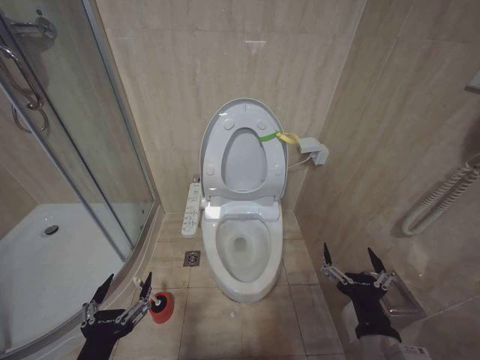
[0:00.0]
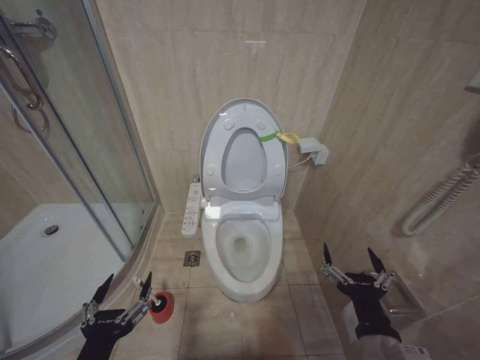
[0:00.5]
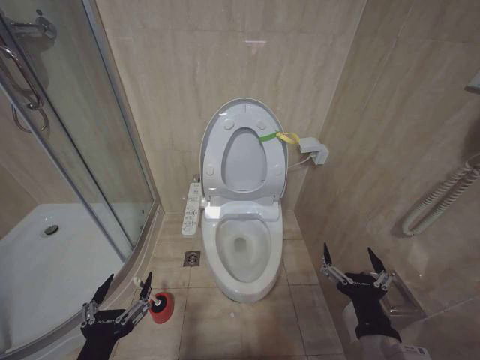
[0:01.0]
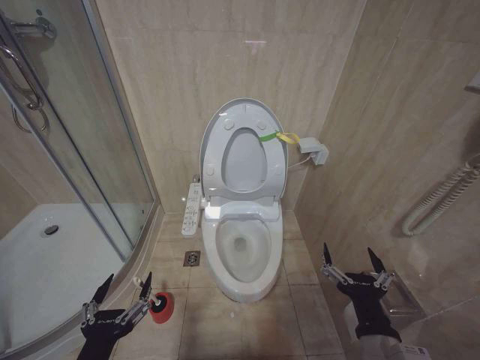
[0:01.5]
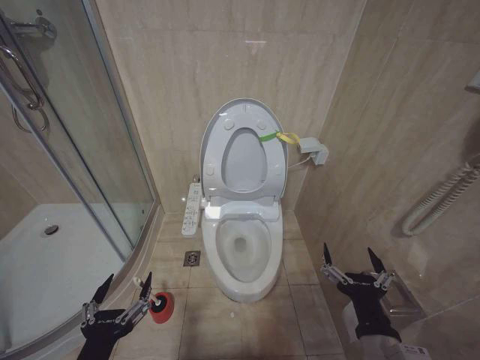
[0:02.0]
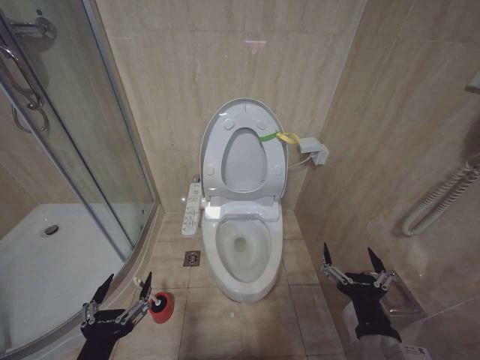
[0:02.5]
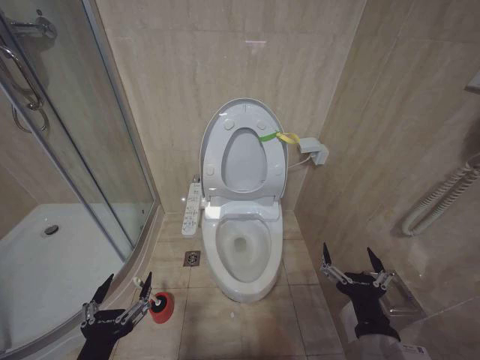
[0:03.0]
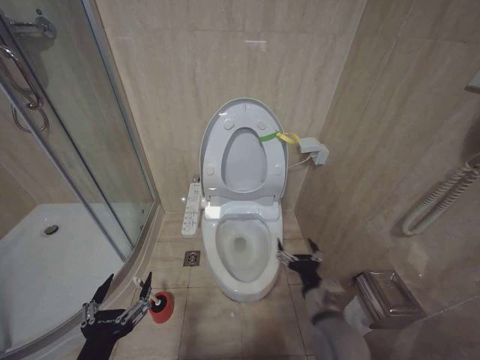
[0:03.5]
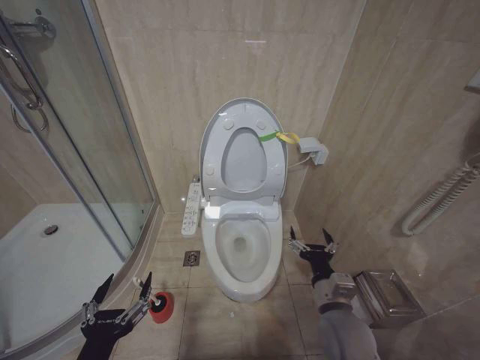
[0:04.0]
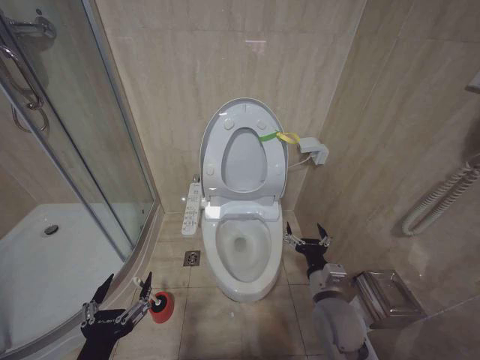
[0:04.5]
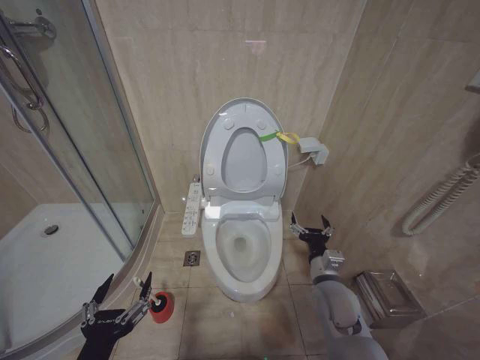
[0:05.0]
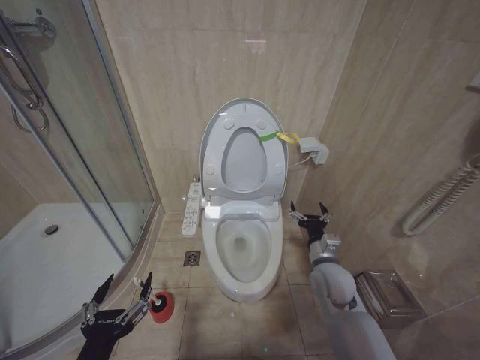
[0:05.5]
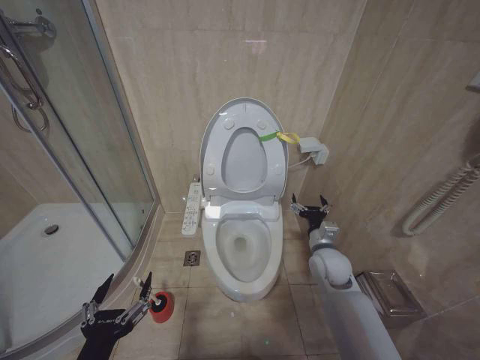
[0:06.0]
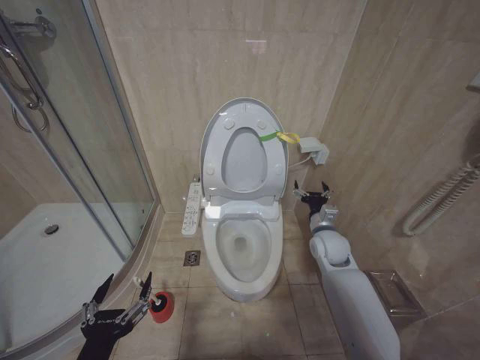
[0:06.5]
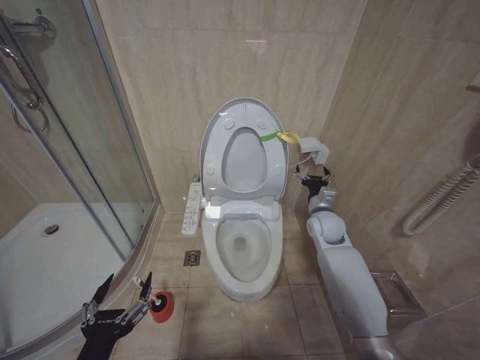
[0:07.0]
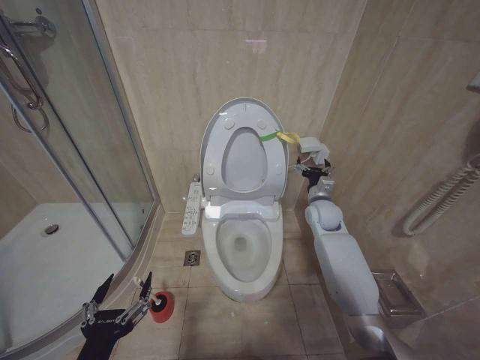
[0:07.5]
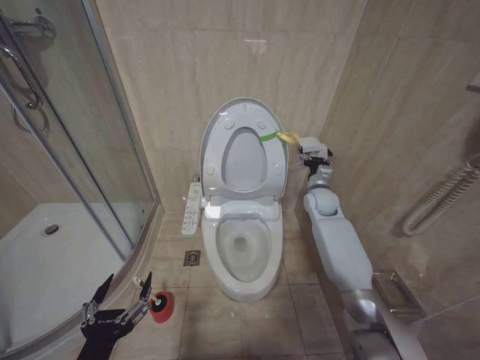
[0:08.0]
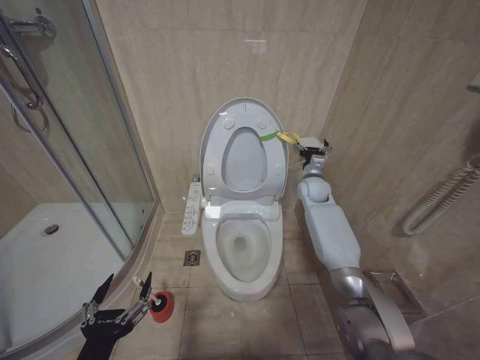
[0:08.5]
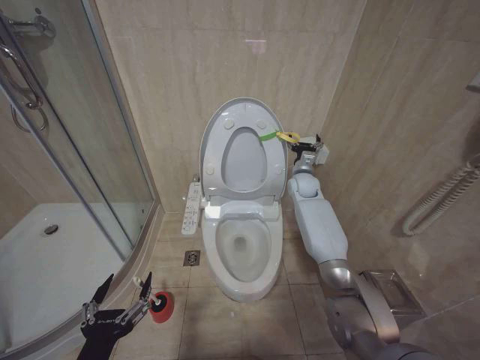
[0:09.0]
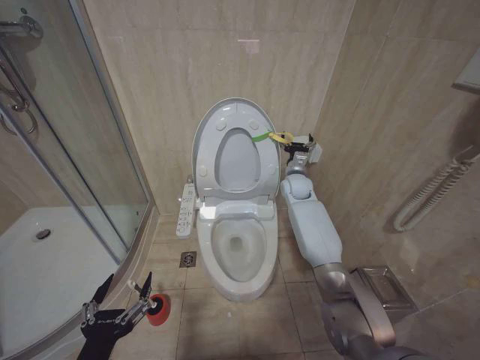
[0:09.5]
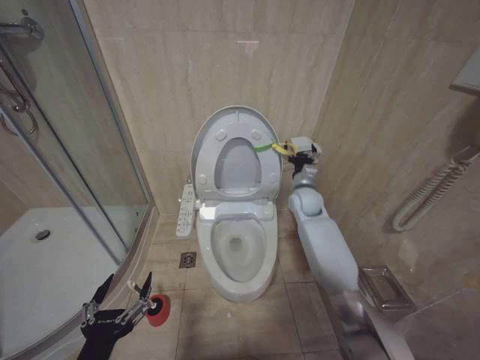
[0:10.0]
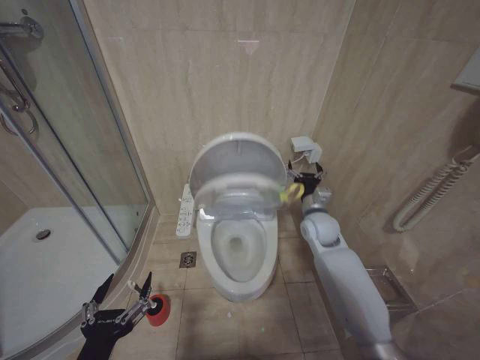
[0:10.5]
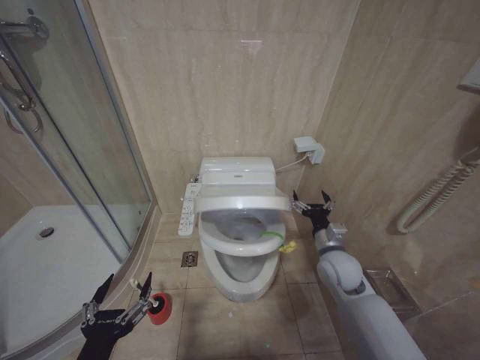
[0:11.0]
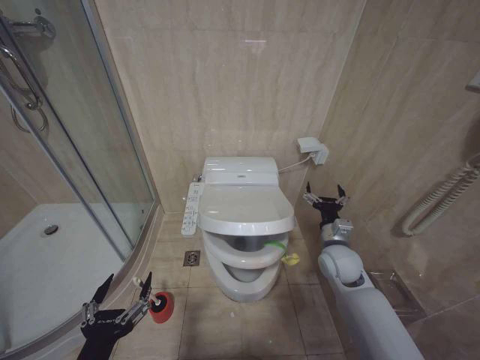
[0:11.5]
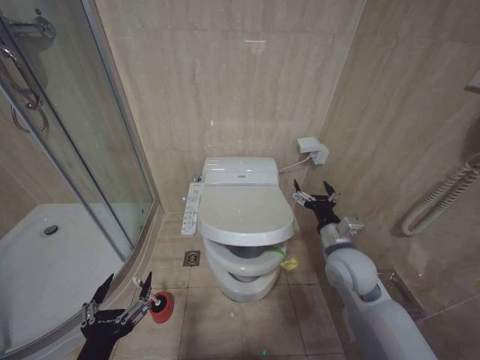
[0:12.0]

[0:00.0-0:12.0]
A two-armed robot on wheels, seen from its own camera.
Task of the whole recording: Open the toilet lid, clean the toilet bowl with a toilet brush, close the toilet lid, and flush.
0:00.0 to 0:02.0: Both grippers stay about where they are.
0:02.0 to 0:04.0: The right gripper is displaced forward by approximately 10 cm.
0:04.0 to 0:06.0: The right gripper shifts roughly 15 cm forward.
0:06.0 to 0:08.0: The right gripper travels forward and upward by about 20 cm.
0:08.0 to 0:10.0: The right gripper is displaced to the left by some 5 cm.
0:10.0 to 0:12.0: The right gripper heads backward, covering roughly 20 cm.

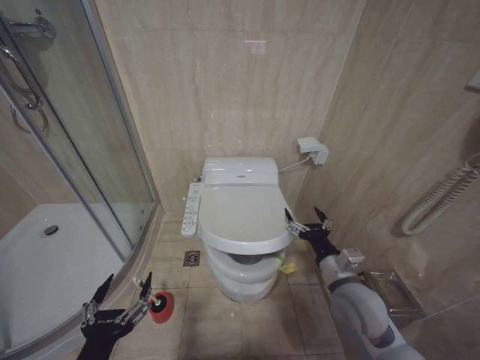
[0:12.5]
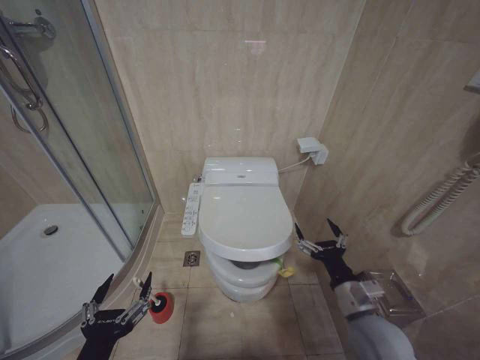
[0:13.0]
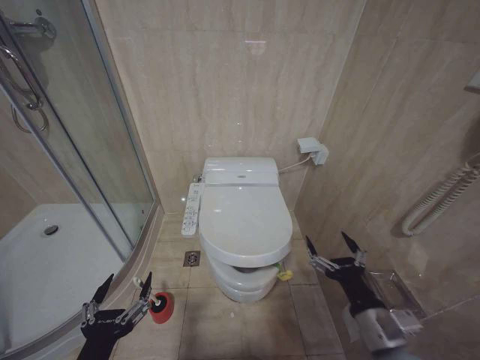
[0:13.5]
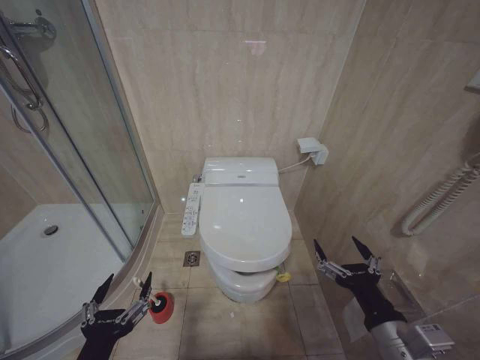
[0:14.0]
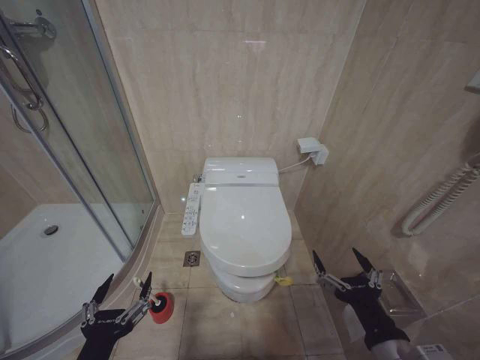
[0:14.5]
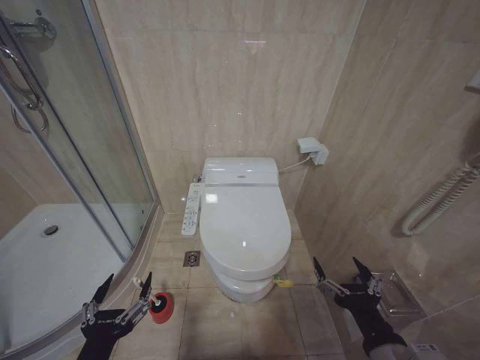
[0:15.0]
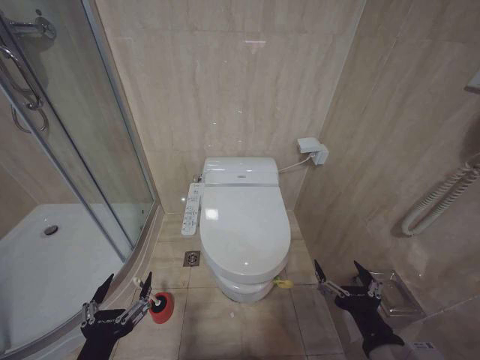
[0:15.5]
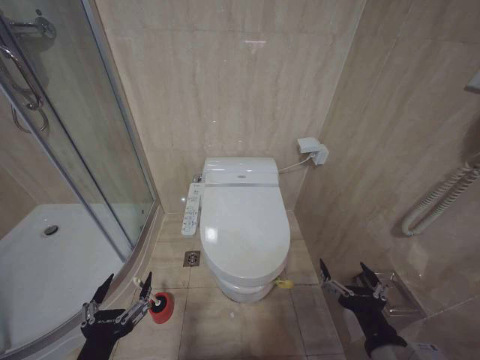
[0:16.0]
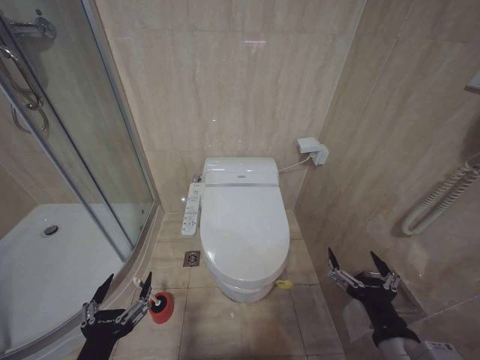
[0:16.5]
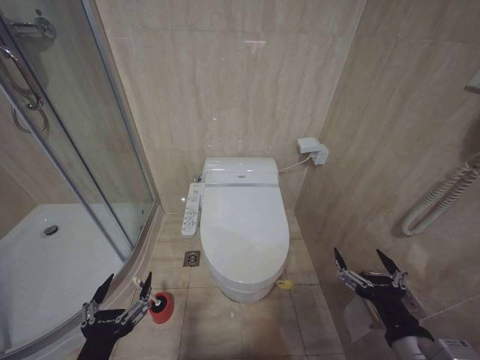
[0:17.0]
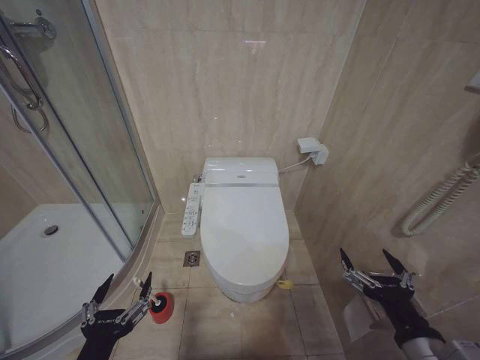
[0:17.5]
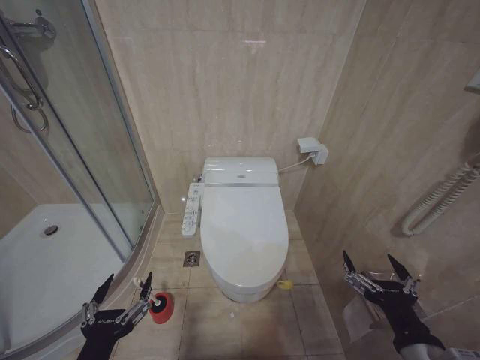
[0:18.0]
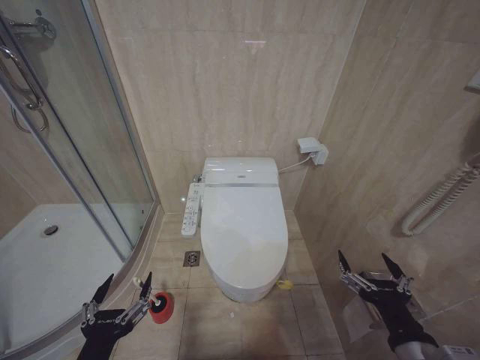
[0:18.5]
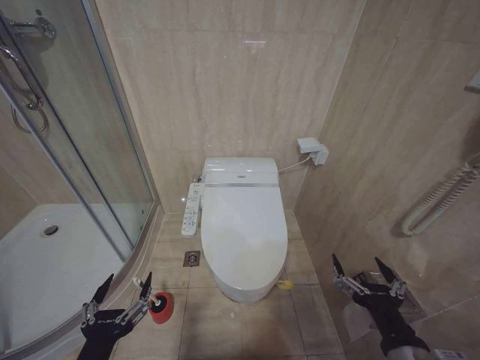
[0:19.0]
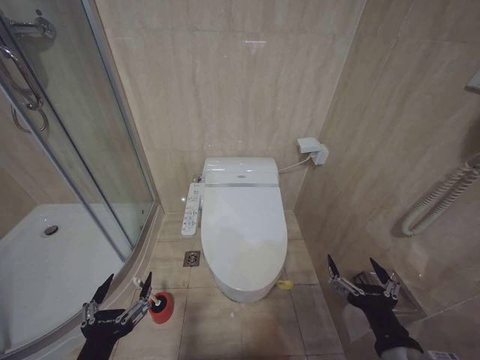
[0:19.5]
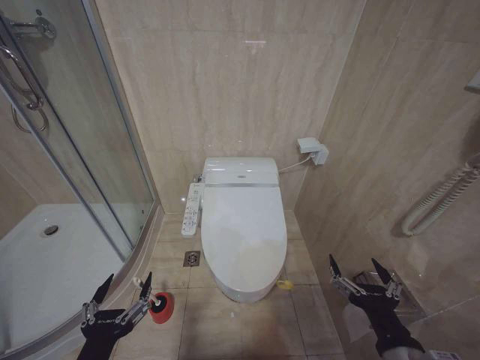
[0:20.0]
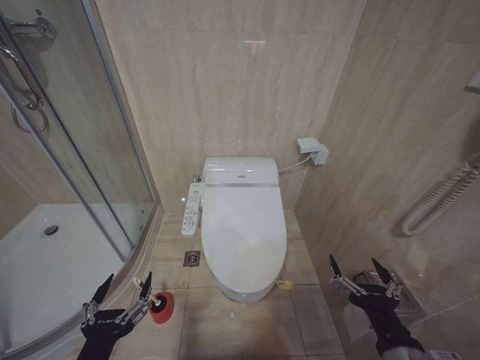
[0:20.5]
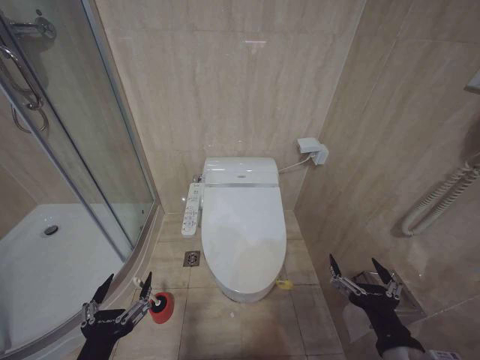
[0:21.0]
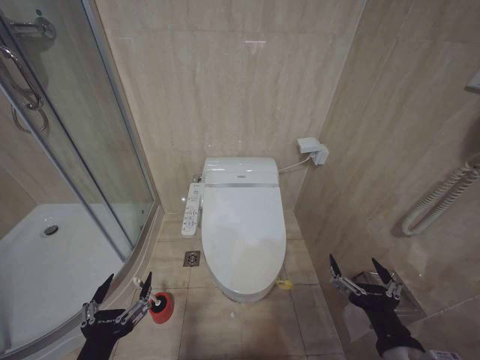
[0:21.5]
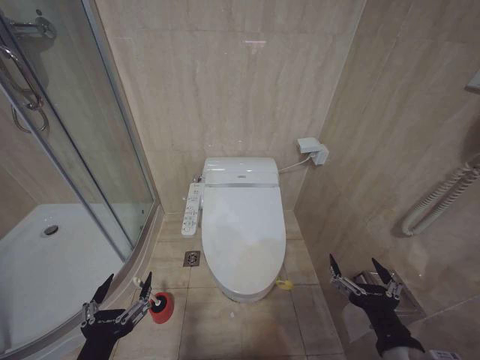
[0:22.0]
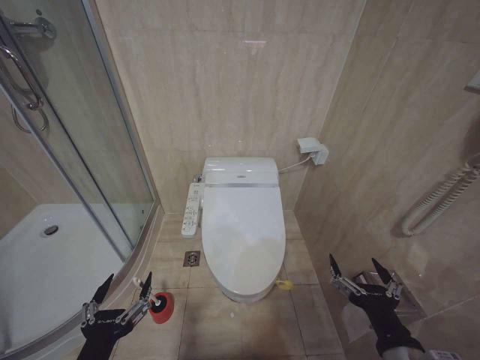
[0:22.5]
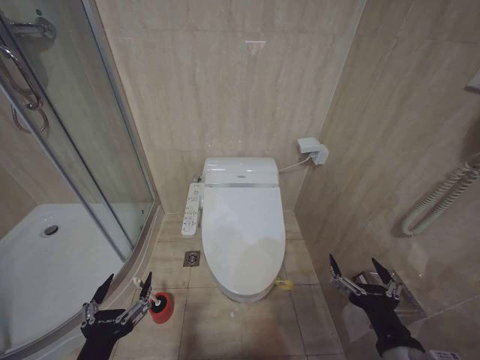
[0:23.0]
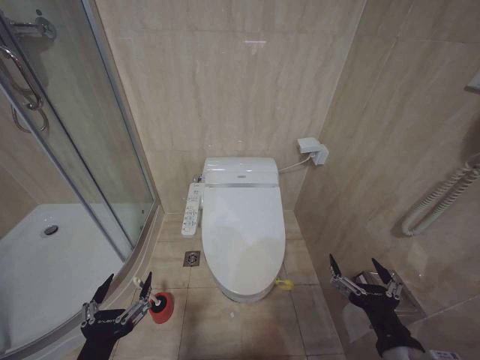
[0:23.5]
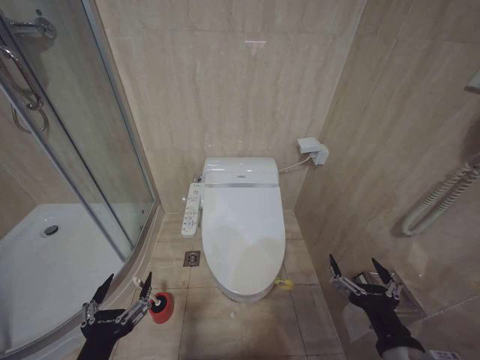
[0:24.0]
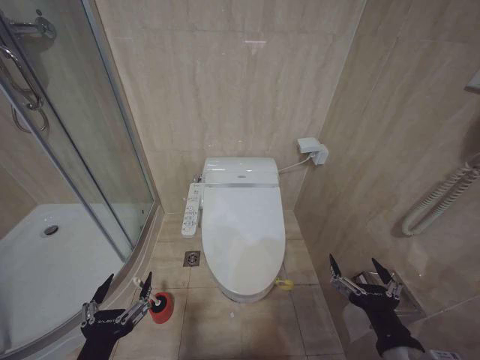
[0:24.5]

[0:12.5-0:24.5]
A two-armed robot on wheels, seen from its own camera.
Task of the whole recording: Open the toilet lid, clean the toilet bowl with a toilet brush, close the toilet lid, and flush.
0:12.5 to 0:14.5: The right gripper goes some 15 cm backward.
0:14.5 to 0:20.5: The grippers stay close to where they were, moving slightly.
0:20.5 to 0:24.5: Both grippers stay put.

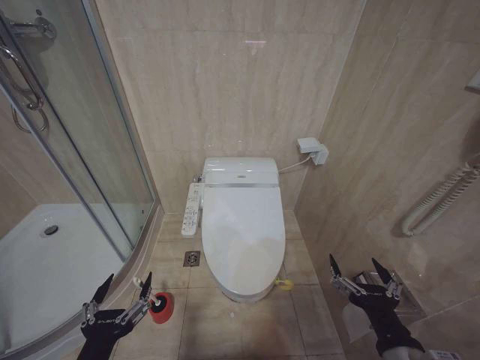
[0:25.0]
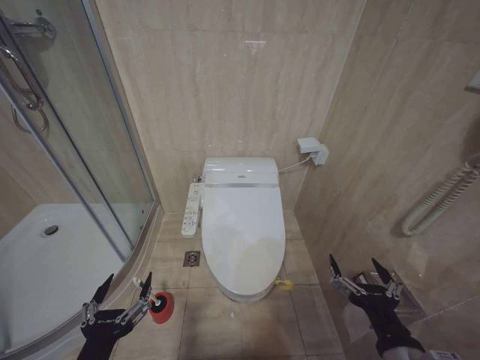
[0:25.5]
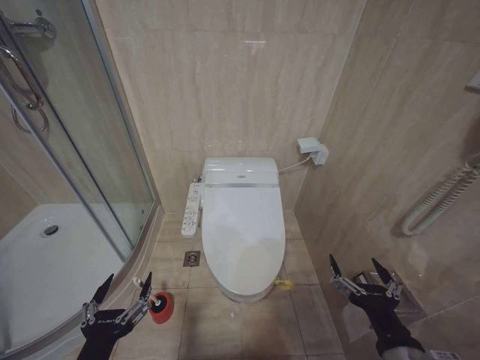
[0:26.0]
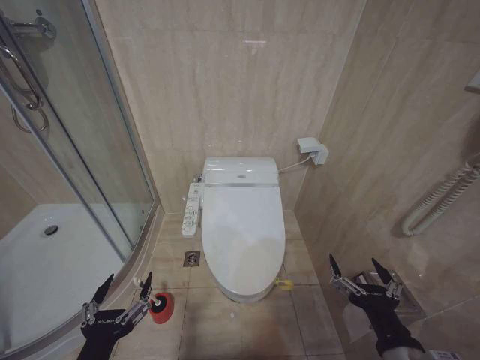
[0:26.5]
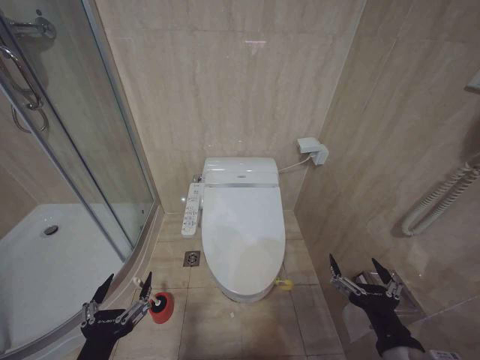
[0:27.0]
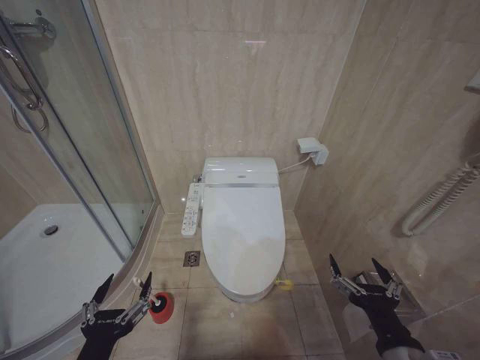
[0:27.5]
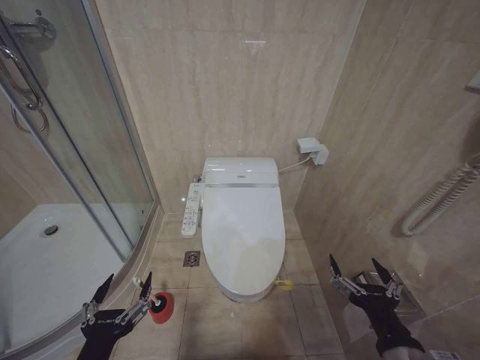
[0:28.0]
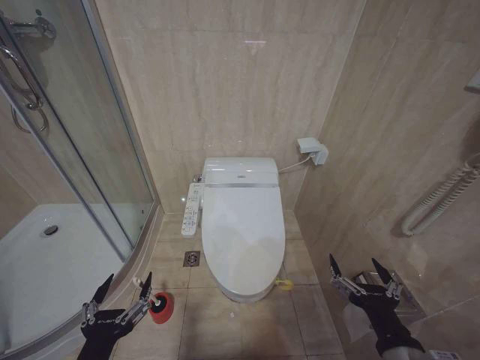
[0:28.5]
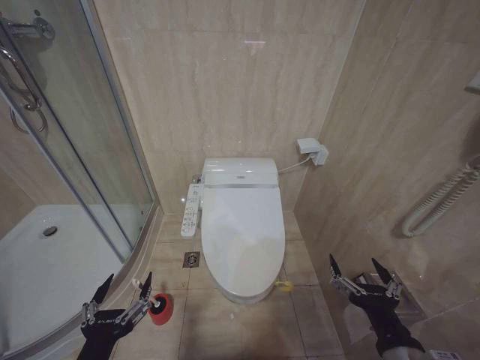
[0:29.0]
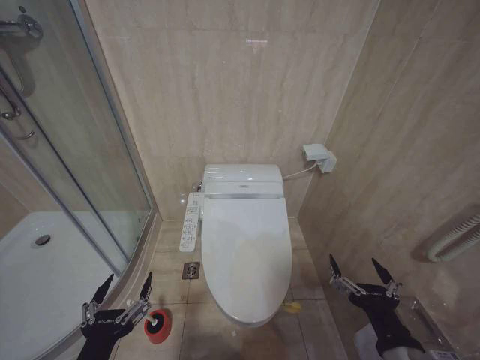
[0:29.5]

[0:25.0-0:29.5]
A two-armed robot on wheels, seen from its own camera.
Task of the whole recording: Open the toilet lid, clean the toilet bowl with a toilet brush, close the toilet lid, and flush.
0:25.0 to 0:29.5: Neither gripper changes place.
